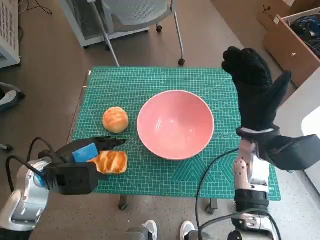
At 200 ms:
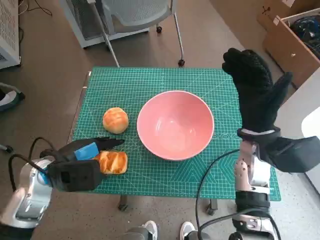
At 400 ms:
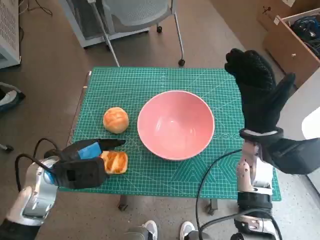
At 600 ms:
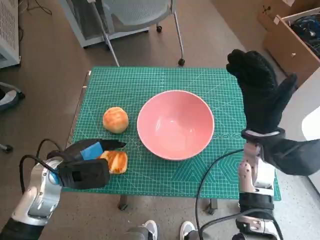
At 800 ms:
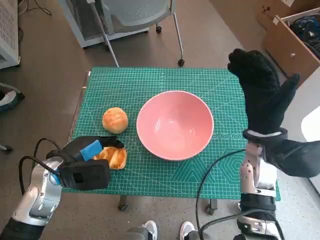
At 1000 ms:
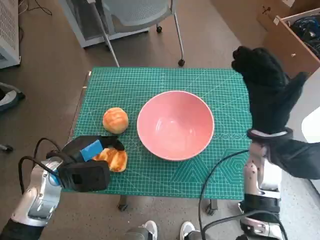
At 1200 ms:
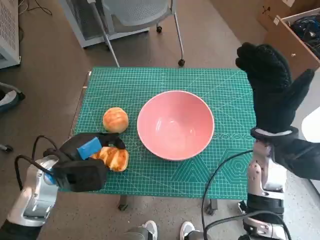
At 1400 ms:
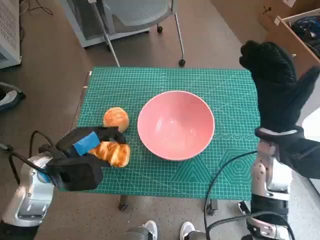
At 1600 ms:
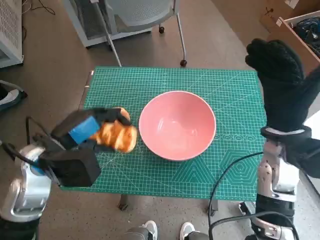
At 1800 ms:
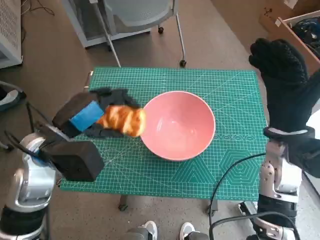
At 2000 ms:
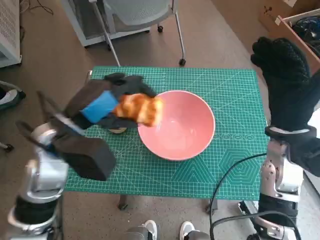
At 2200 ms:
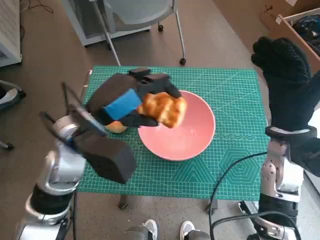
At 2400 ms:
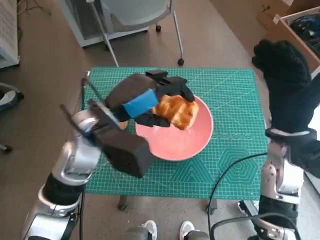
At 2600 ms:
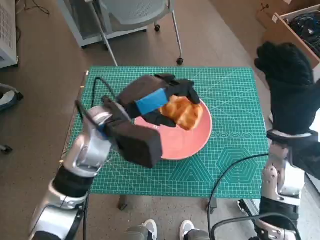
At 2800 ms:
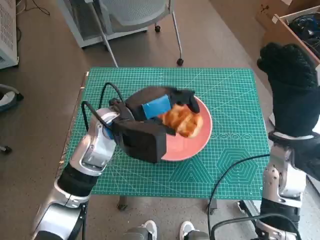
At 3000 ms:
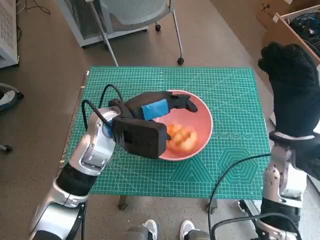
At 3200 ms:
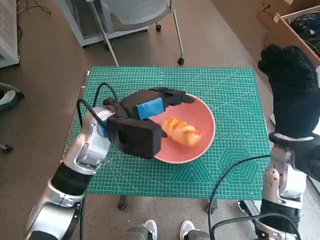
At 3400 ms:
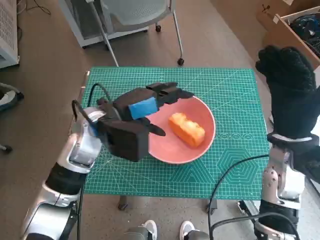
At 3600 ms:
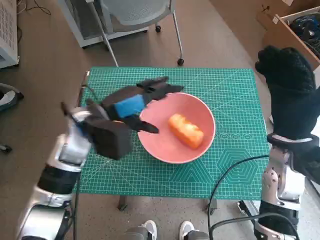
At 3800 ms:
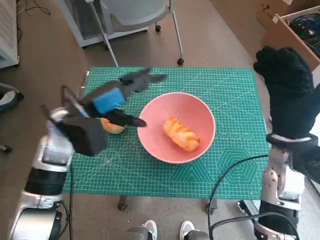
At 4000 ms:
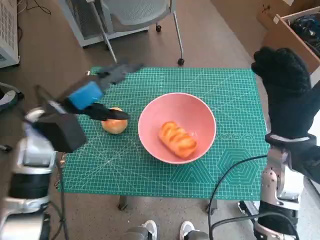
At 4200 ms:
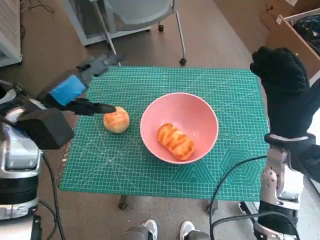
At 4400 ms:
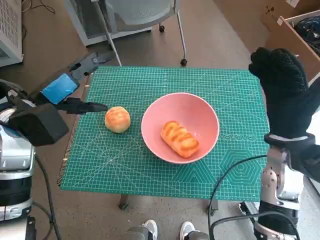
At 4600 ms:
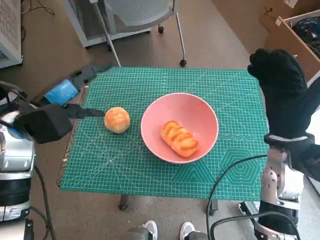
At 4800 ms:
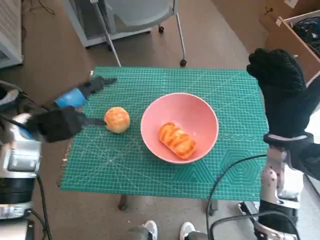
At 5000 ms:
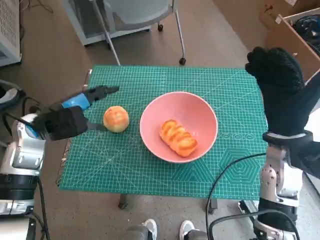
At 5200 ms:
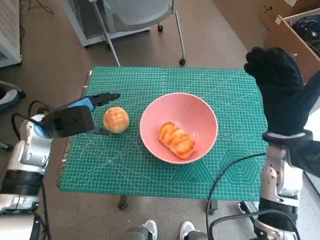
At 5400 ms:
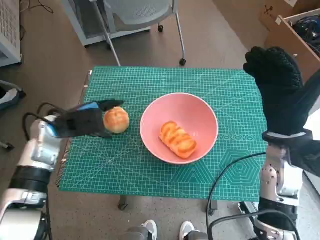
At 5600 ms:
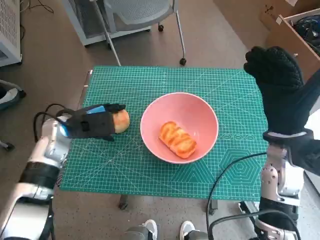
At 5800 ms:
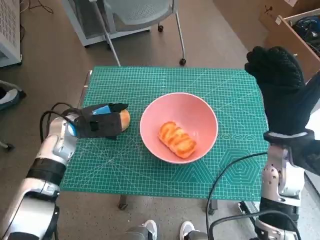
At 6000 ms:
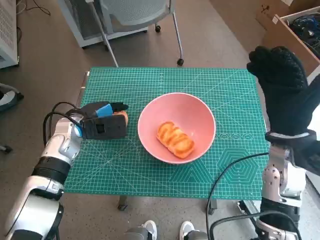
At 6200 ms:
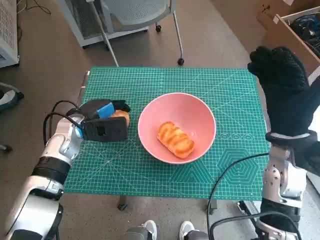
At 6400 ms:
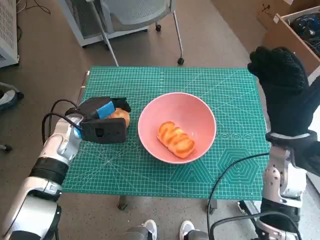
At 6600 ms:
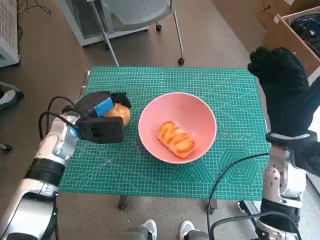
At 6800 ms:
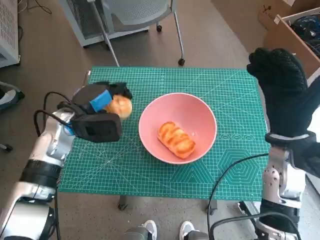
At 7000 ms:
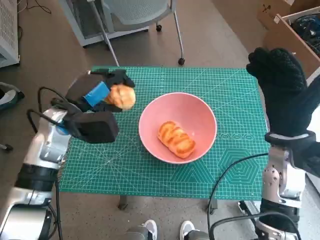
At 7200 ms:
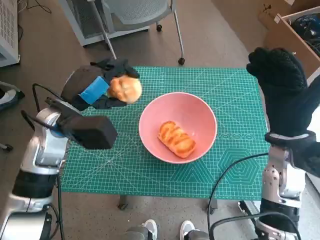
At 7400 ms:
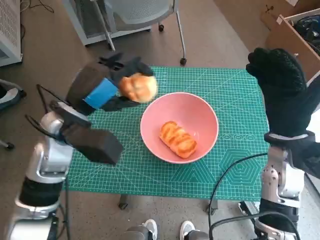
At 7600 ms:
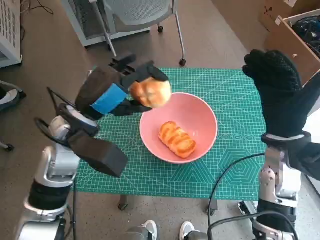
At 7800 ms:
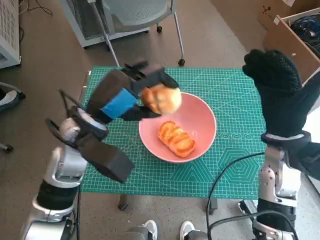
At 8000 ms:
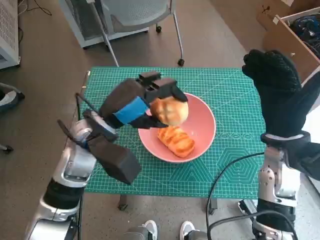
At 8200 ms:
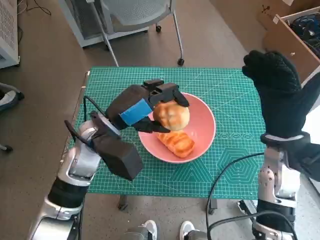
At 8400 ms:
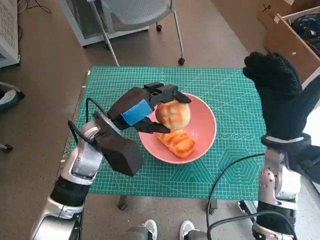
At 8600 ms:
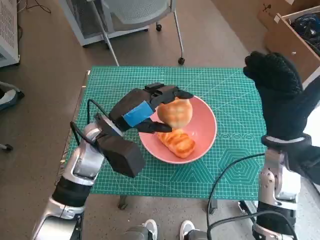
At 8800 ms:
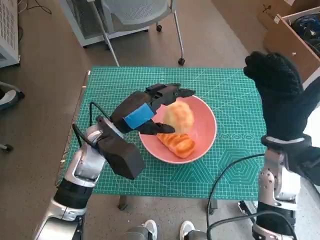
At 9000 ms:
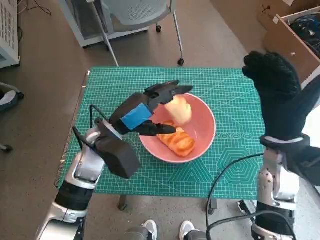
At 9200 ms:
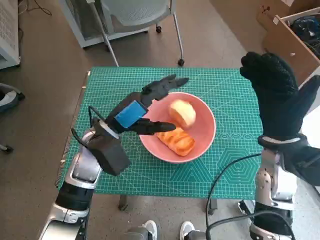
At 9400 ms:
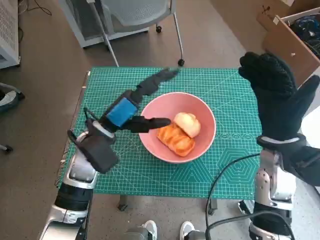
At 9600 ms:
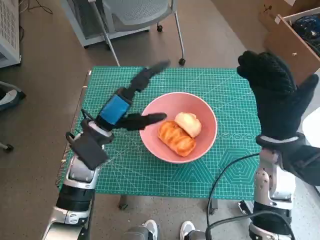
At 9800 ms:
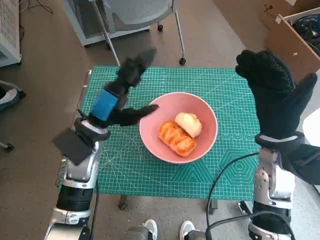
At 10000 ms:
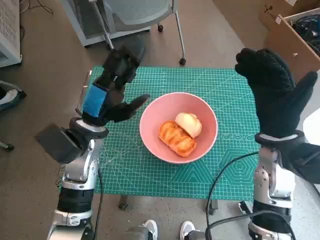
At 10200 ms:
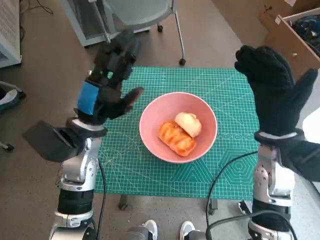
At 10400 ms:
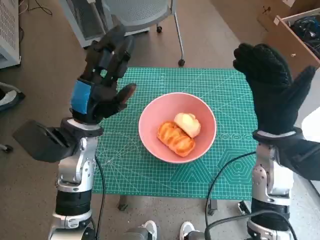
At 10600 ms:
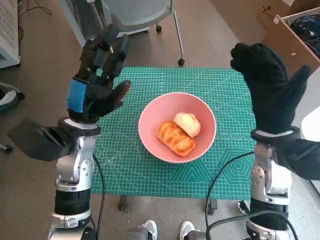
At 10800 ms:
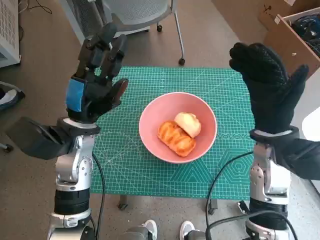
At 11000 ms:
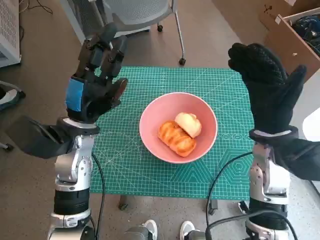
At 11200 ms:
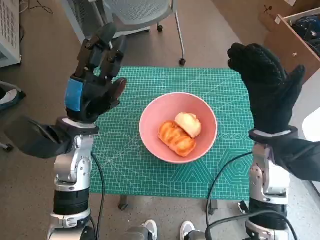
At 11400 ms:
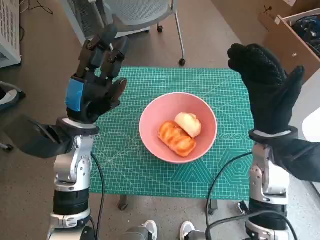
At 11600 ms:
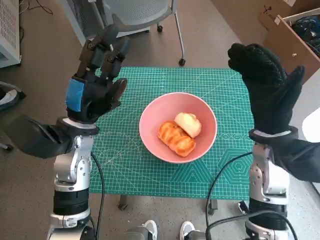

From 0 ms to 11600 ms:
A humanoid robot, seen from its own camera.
Step, from 800 ms to 3000 ms: Place the long bread in pink bowl with left hand.
Step, from 3200 ms to 6000 ms: Grasp the round bread with left hand.
Step, from 6200 ms to 9000 ms: Place the round bread in pink bowl with left hand.
From 1400 ms to 2800 ms: The left hand heads to the right, forward and upward, covering about 15 cm.
From 2800 ms to 4400 ms: The left hand moves to the left, about 15 cm.
From 4400 ms to 5800 ms: The left hand moves downward, roughly 10 cm.
From 5800 ms to 7200 ms: The left hand travels upward by some 5 cm.
From 7200 ms to 8800 ms: The left hand goes approximately 5 cm to the right.
From 10200 ms to 11600 ms: The hands stay close to where they were, moving slightly.

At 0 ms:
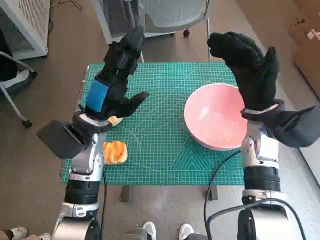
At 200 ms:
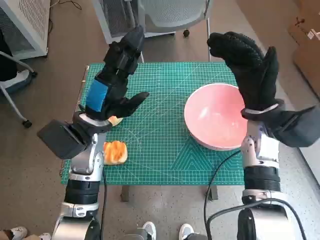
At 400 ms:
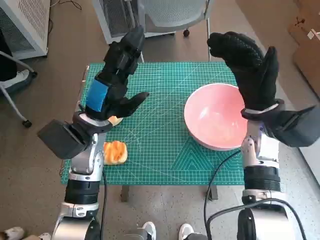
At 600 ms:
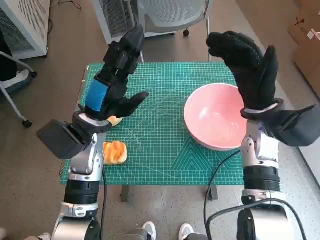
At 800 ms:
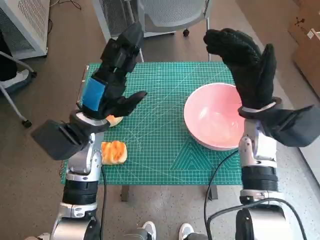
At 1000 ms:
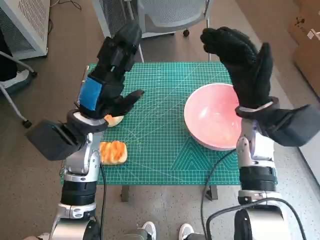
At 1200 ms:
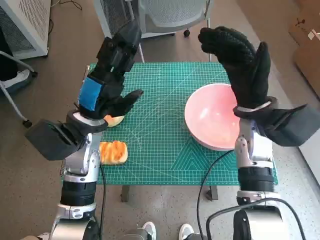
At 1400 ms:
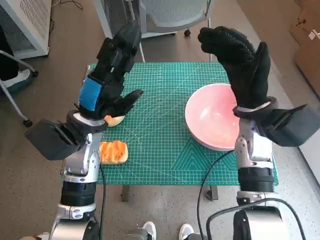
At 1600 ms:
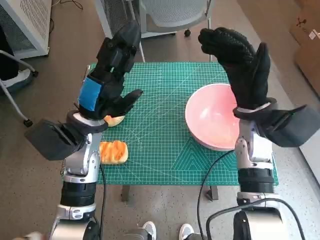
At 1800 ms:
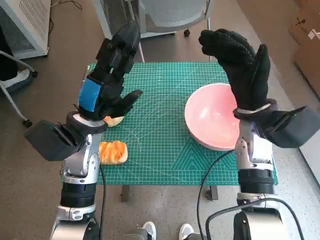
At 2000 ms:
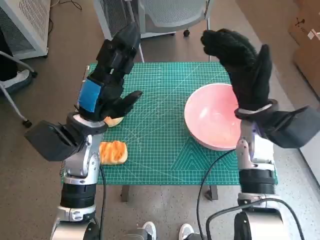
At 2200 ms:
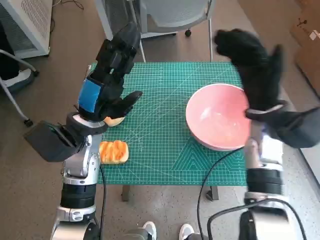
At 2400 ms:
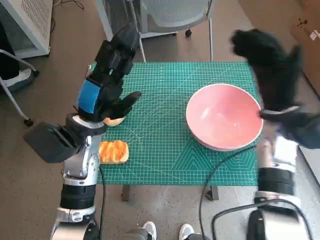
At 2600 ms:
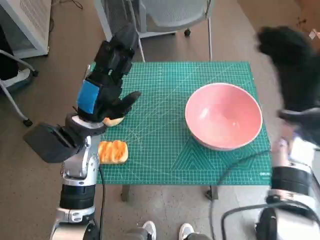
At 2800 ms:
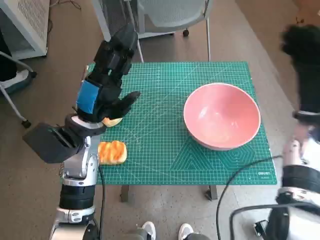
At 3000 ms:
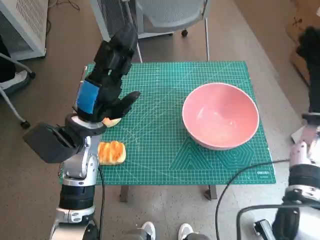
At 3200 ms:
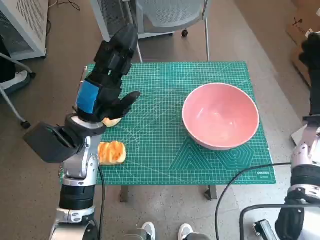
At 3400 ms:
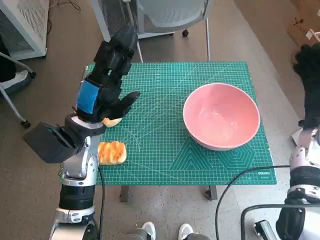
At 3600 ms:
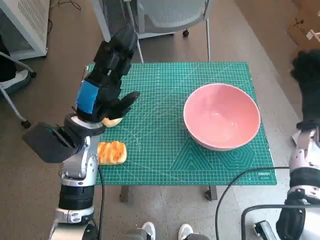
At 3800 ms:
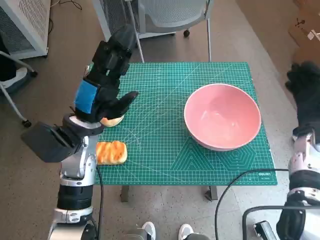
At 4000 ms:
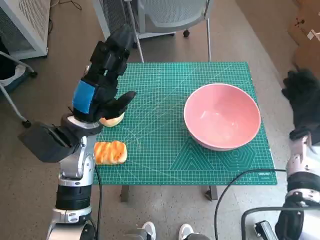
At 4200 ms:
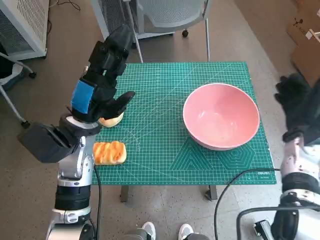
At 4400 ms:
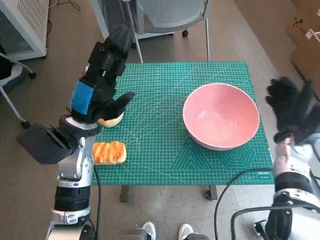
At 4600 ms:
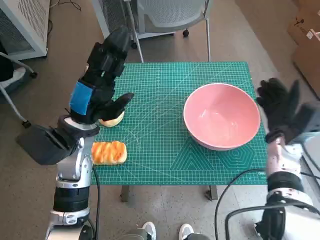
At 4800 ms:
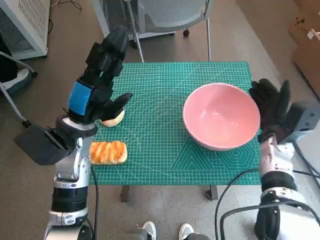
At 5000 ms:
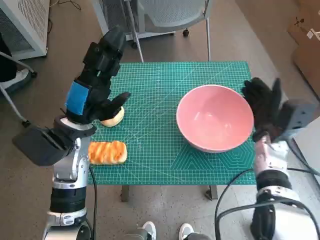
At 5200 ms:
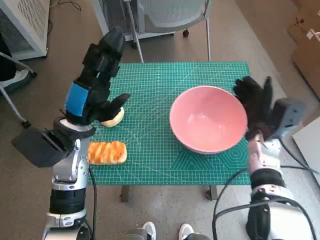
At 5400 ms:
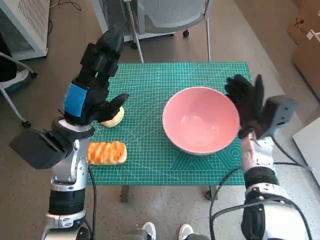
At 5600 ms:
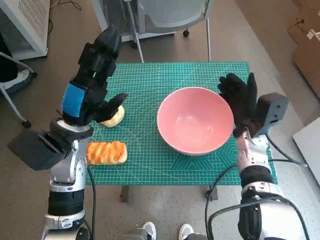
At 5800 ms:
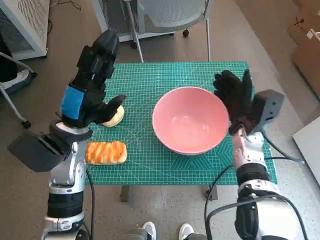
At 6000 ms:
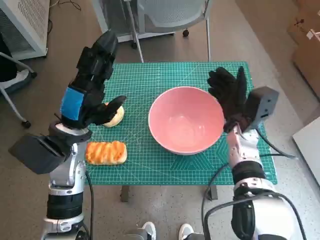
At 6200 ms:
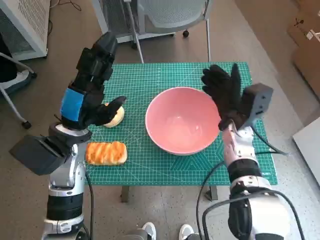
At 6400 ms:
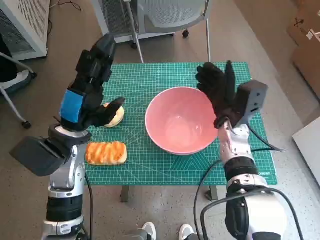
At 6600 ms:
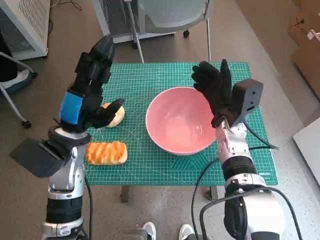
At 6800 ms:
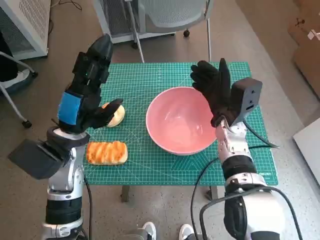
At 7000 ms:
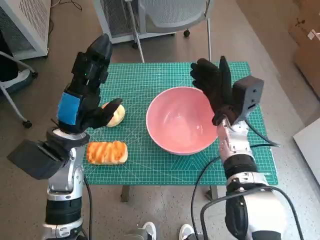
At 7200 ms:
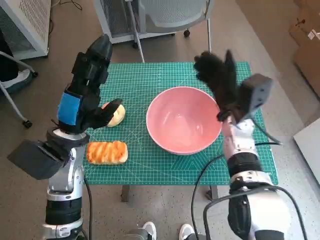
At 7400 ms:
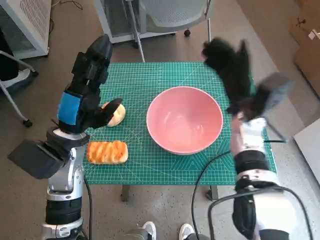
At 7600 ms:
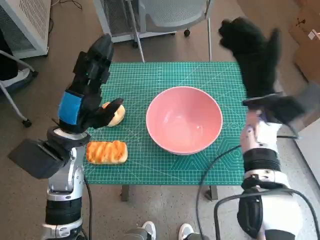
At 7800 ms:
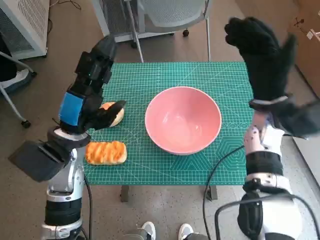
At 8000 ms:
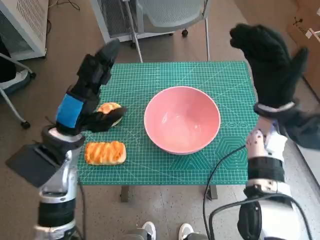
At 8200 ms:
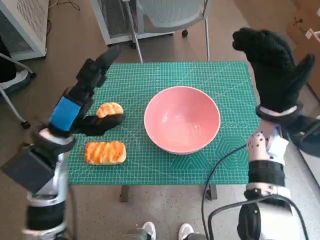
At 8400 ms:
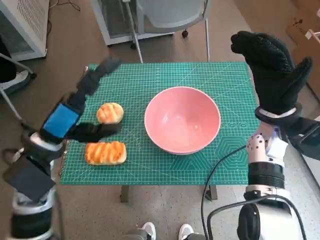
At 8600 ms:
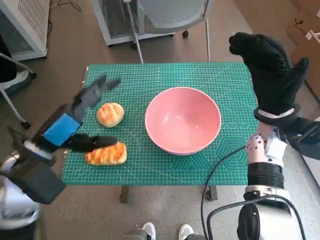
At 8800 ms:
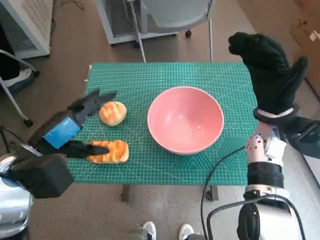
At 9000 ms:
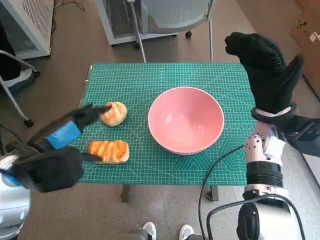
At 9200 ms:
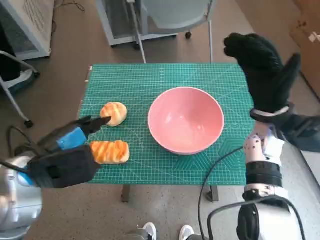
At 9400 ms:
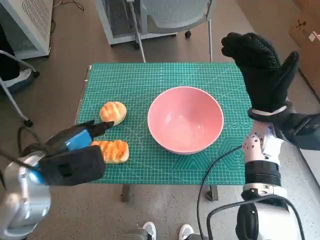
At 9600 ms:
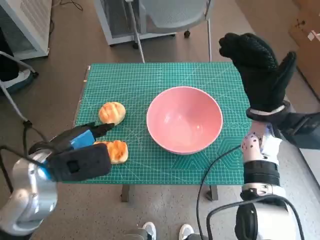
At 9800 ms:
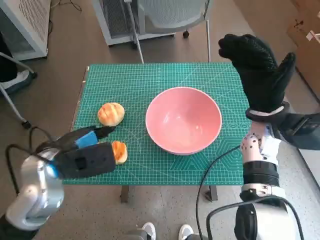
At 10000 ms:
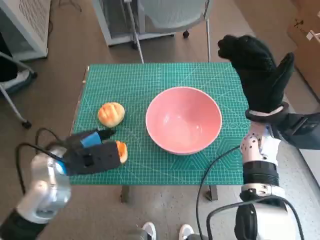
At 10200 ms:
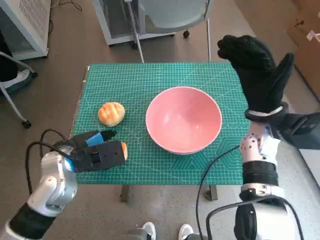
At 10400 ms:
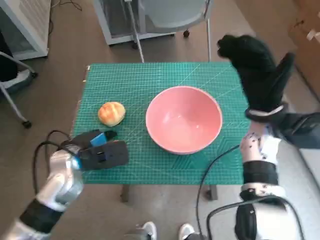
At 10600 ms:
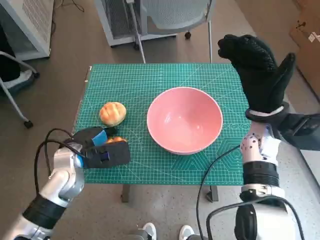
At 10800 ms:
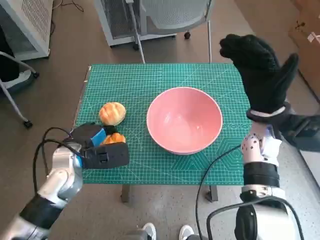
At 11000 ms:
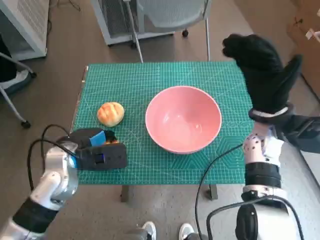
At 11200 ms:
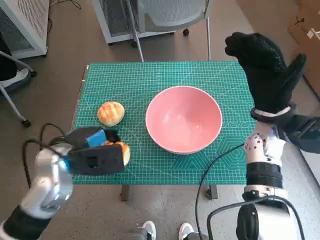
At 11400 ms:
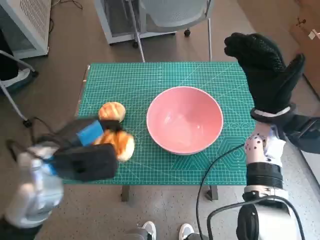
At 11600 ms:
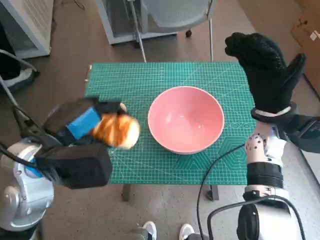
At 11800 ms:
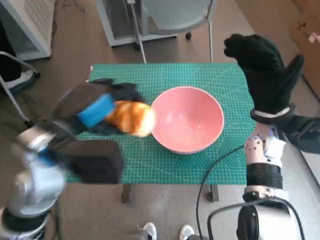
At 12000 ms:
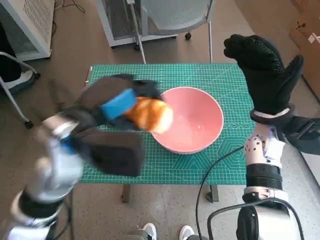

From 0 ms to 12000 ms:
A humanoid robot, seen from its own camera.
Step, from 0 ms to 7200 ms: Move the pink bowl to the center of table with right hand.
Step, from 7400 ms to 10600 ms: Grasp the long bread with left hand.
From 1600 ms to 3000 ms: The right hand heads to the right, covering some 10 cm.
From 3000 ms to 4400 ms: The right hand travels downward by about 5 cm.
From 4400 ms to 6000 ms: The right hand is displaced to the left by approximately 10 cm.
From 6000 ms to 7600 ms: The right hand goes some 5 cm upward.
From 7600 ms to 9000 ms: The left hand goes about 5 cm backward.
From 9000 ms to 10400 ms: The left hand travels downward and forward by approximately 10 cm.
From 10400 ms to 12000 ms: The left hand goes roughly 15 cm upward and to the right.
